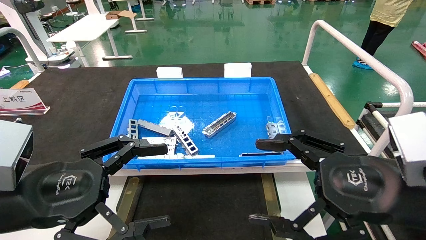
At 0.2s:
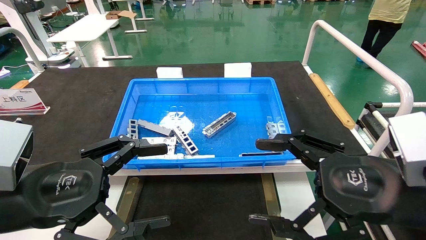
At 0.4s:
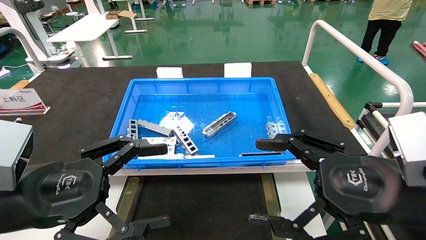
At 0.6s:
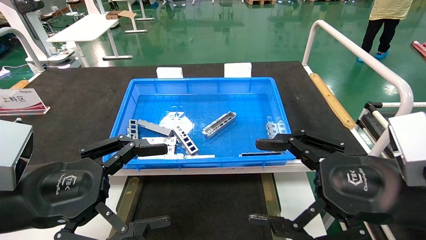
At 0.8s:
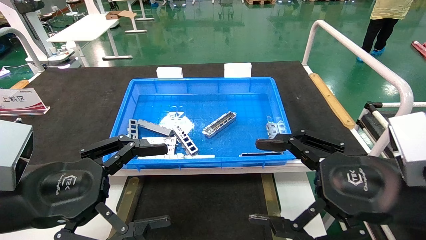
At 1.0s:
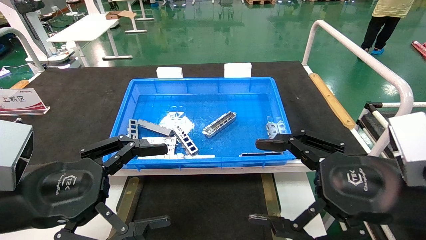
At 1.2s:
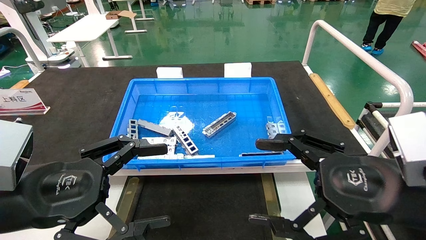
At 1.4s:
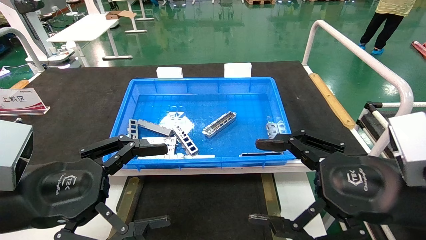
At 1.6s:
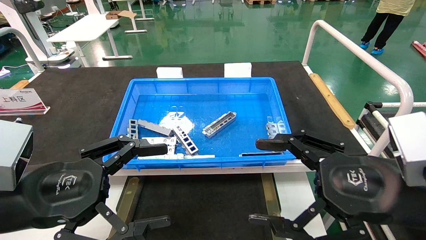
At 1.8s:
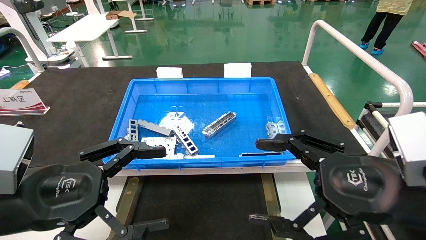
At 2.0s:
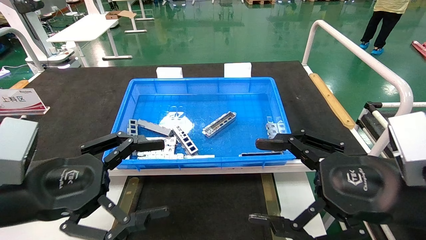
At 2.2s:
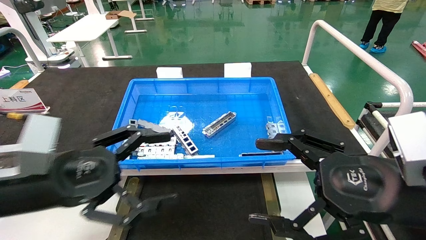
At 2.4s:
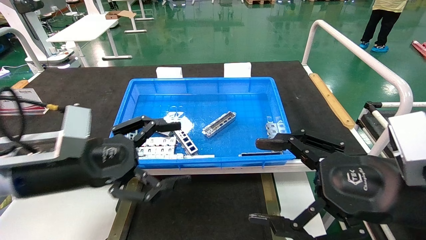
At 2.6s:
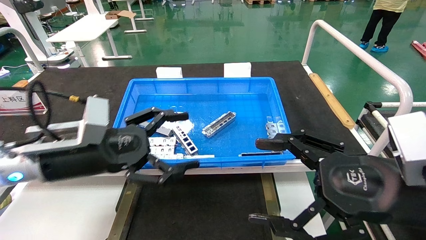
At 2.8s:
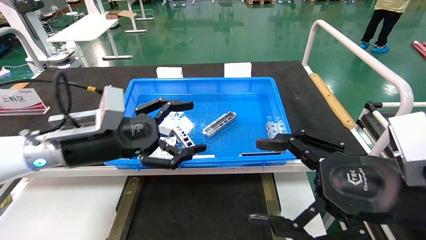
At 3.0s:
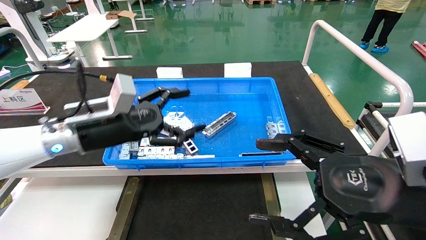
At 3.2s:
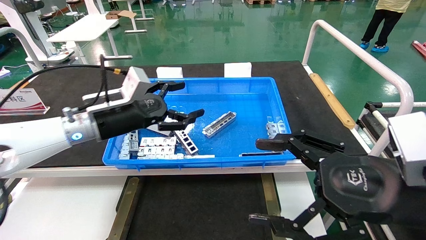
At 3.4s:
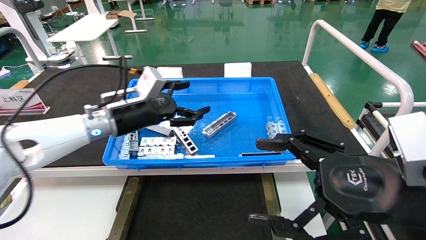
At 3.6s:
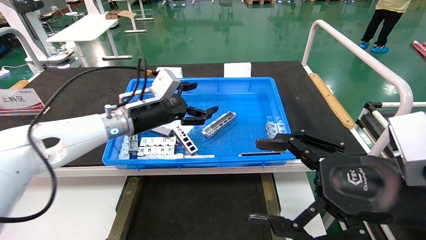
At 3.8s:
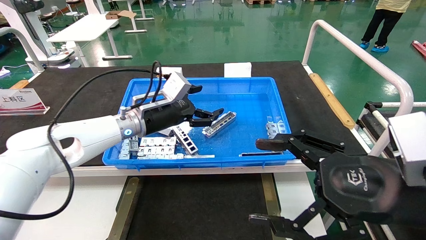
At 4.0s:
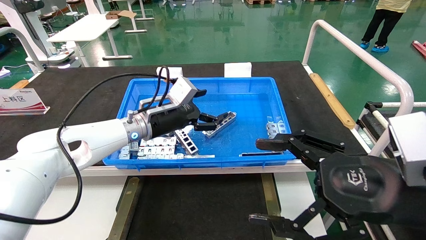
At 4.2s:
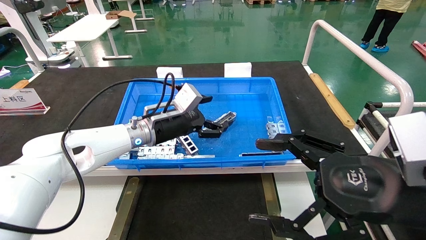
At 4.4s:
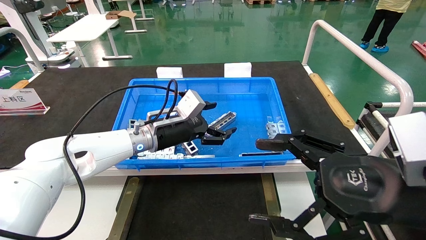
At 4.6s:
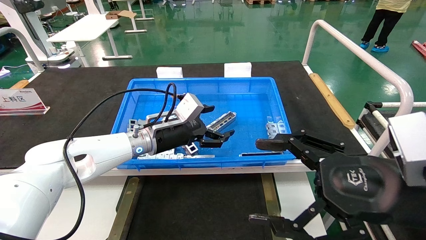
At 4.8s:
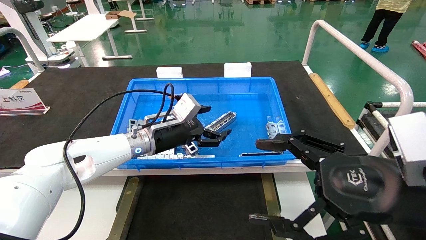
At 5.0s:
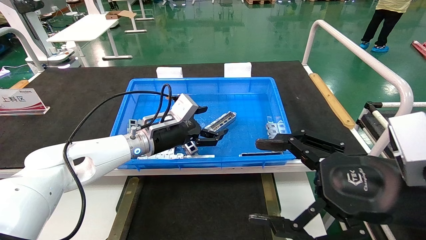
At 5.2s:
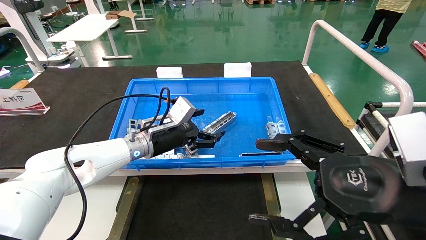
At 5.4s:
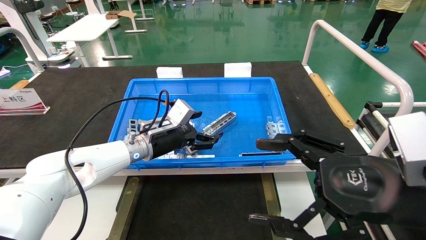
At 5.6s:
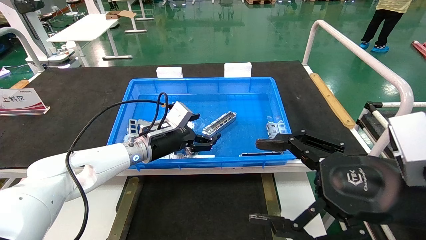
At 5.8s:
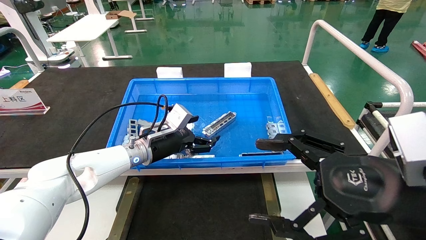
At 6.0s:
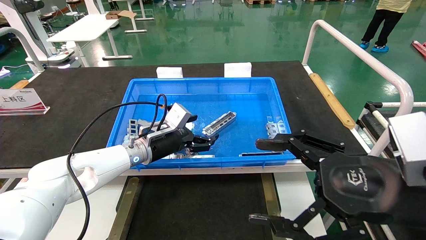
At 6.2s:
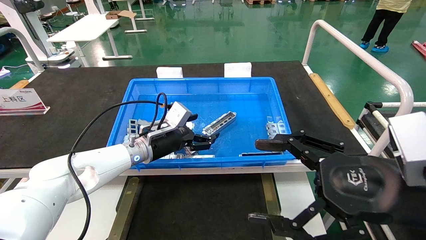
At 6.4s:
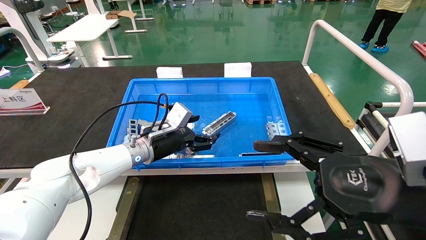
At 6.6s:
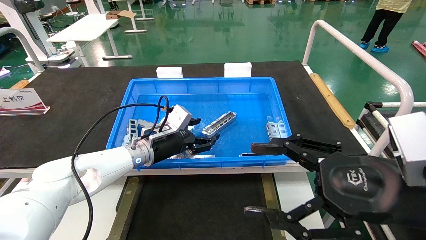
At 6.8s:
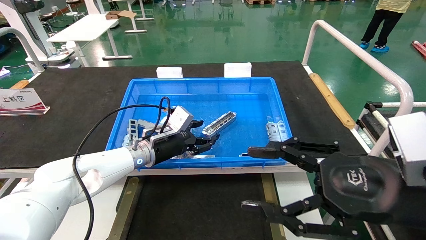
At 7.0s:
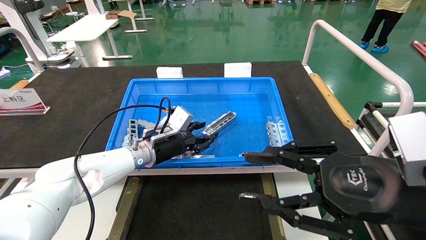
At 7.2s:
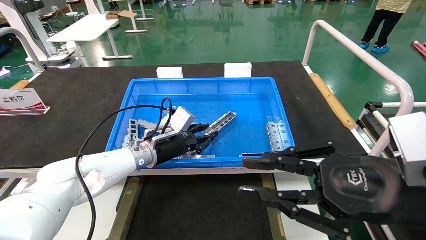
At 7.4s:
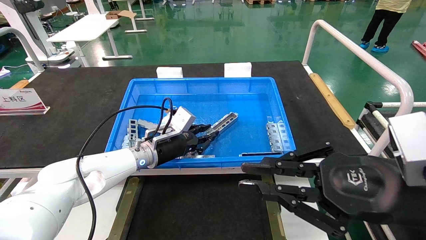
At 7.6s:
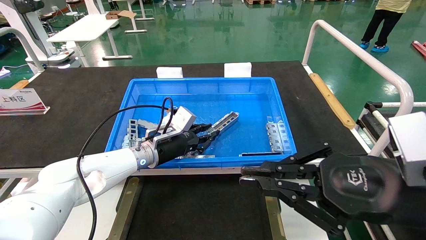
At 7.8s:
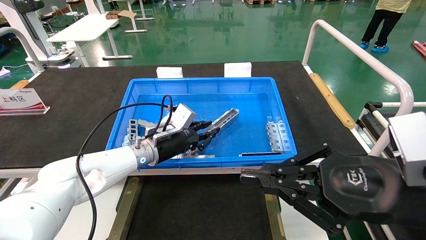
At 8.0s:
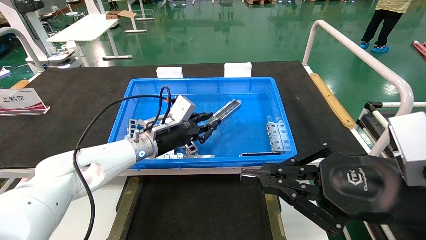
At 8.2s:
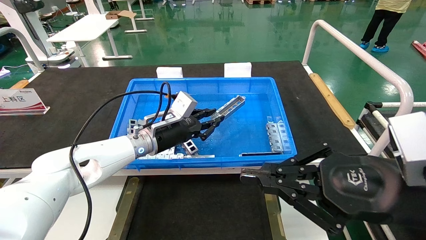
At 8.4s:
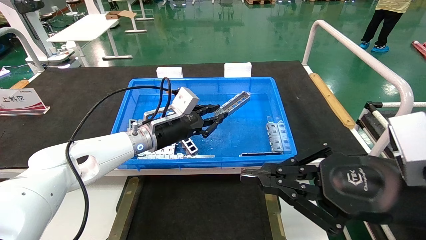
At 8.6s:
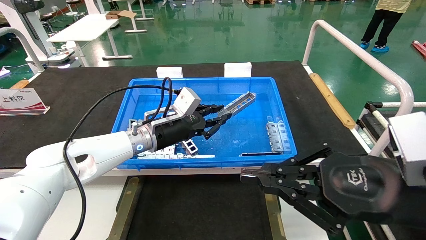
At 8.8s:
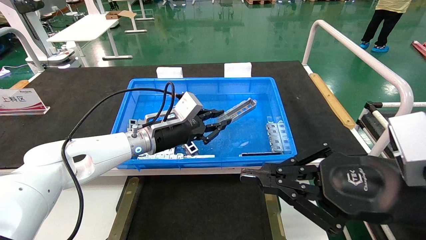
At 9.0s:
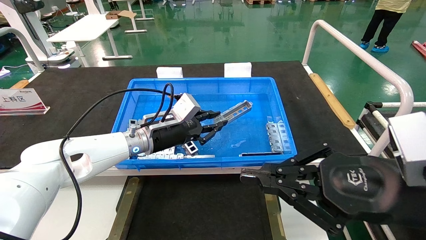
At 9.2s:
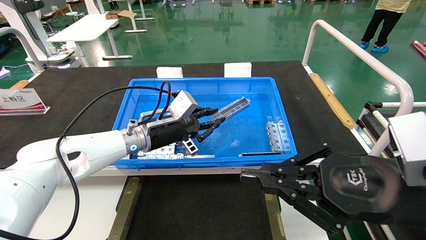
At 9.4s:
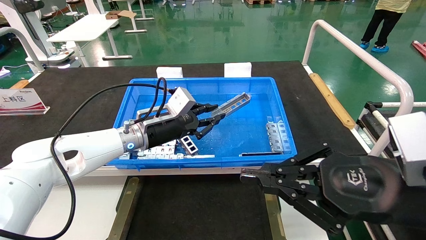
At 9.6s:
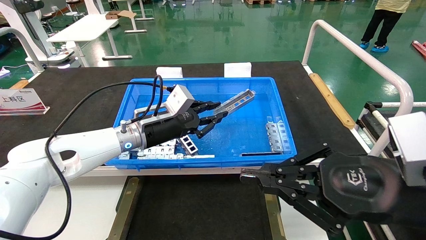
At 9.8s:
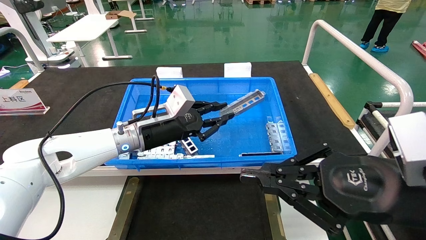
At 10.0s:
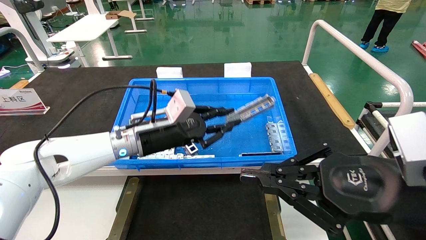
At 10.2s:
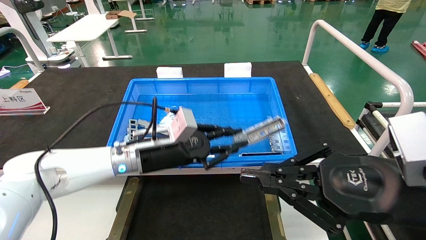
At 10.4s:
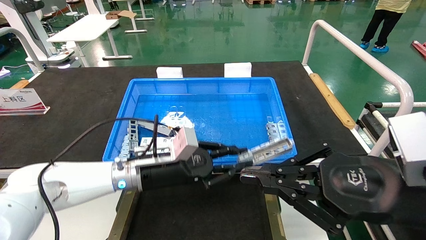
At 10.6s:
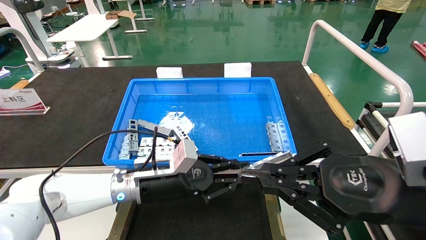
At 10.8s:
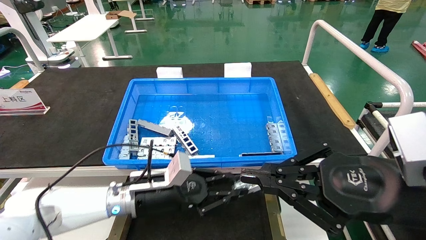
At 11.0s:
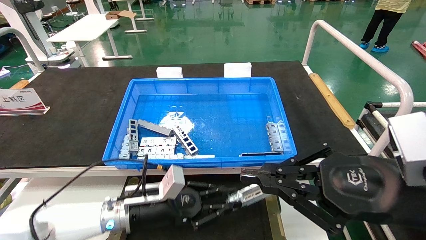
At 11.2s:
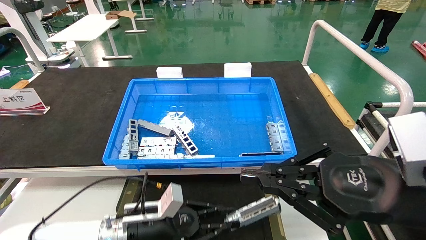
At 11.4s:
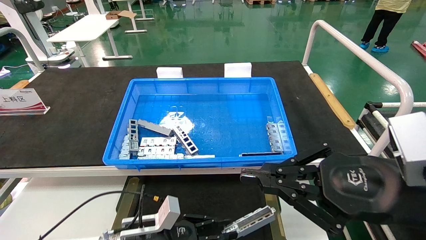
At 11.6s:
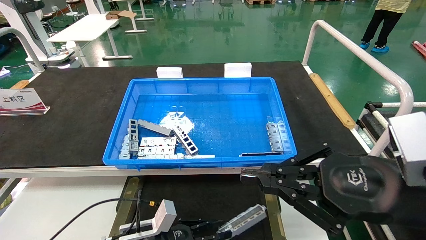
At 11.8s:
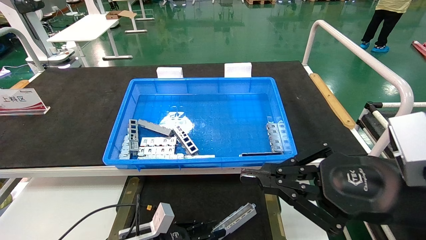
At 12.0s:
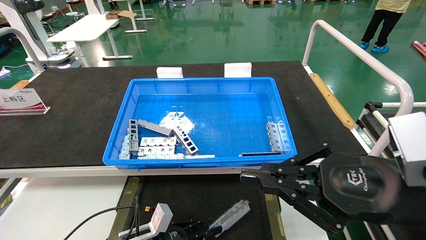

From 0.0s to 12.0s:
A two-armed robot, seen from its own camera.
Task of the whole recording: Grasp the part with one hand and place it on the black container.
Step, from 2.0s to 7.4s: Pick up the front USB bracket from the feeding area.
From 0.0s to 1.6s: The two grippers keep their place.
From 1.6s to 3.0s: The left gripper moves forward, approximately 20 cm.
From 3.0s to 4.4s: The left gripper travels to the right and forward by roughly 15 cm.
From 4.4s to 6.0s: The left gripper shifts by about 5 cm.
From 6.0s to 7.6s: The left gripper closes up. Meanwhile the right gripper closes its fingers.
From 7.6s to 9.0s: The grippers make only small movements.
From 9.0s to 10.4s: The left gripper heads backward, covering approximately 5 cm.
From 10.4s to 12.0s: The left gripper shifts about 20 cm downward.

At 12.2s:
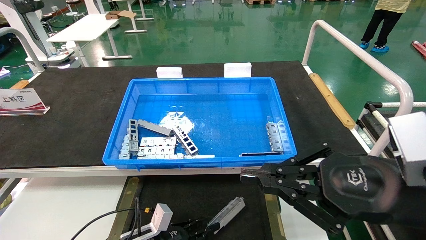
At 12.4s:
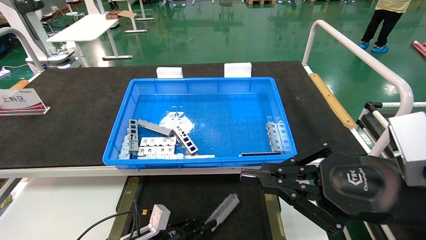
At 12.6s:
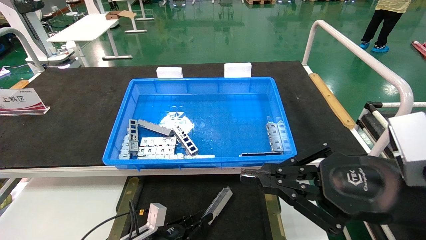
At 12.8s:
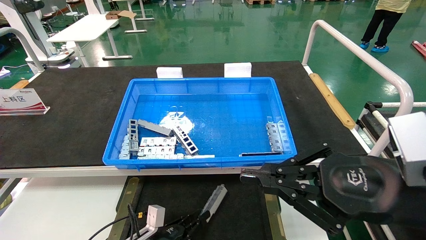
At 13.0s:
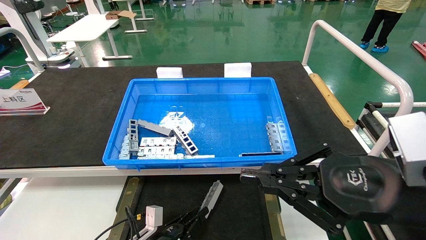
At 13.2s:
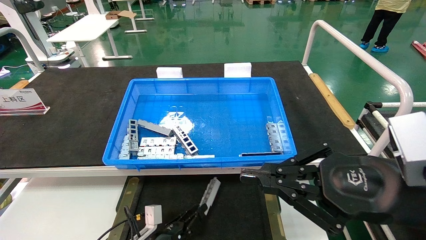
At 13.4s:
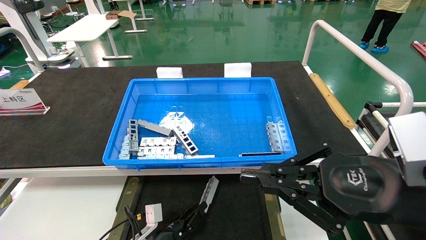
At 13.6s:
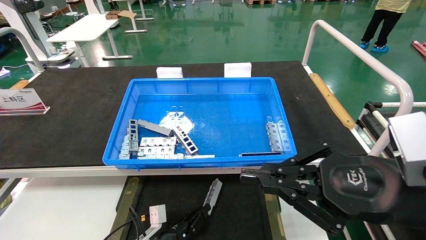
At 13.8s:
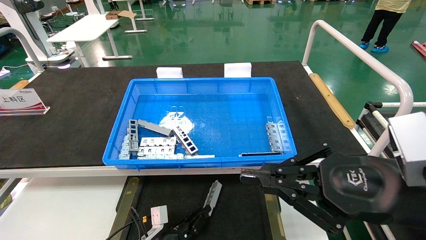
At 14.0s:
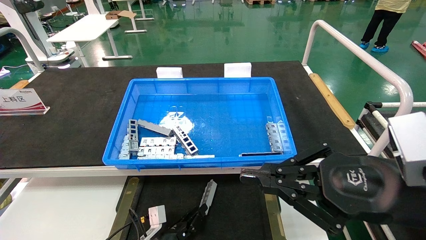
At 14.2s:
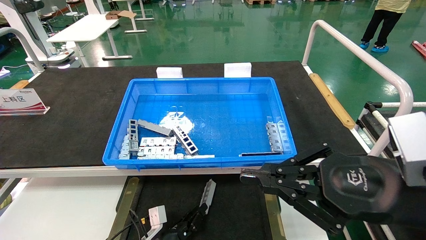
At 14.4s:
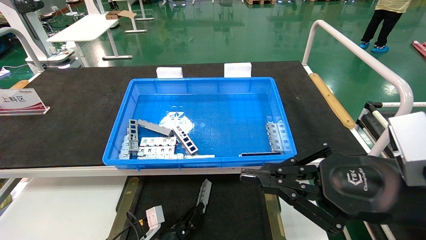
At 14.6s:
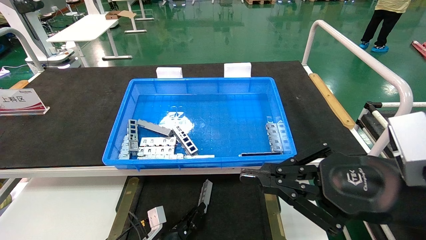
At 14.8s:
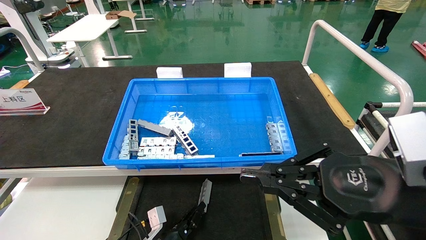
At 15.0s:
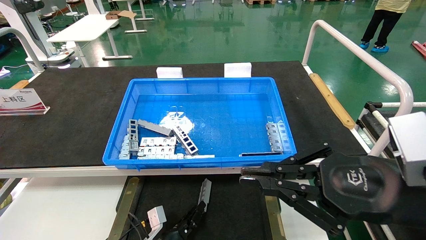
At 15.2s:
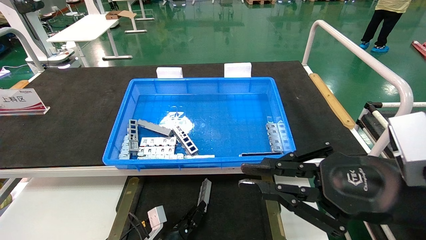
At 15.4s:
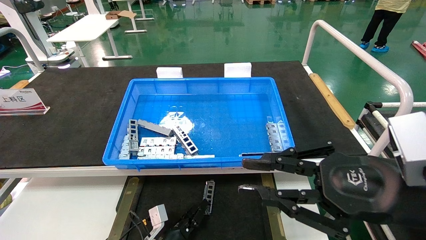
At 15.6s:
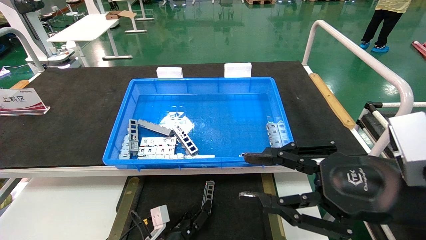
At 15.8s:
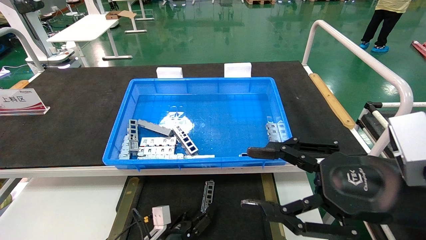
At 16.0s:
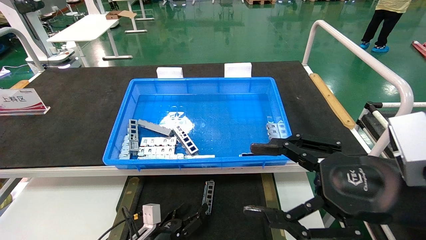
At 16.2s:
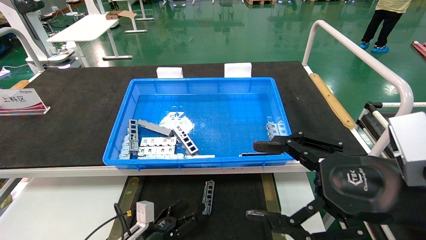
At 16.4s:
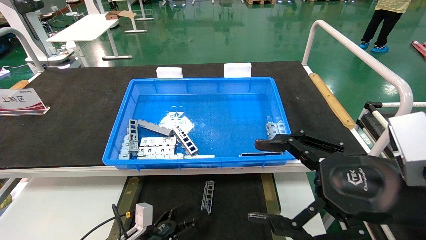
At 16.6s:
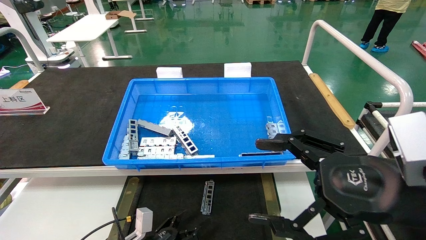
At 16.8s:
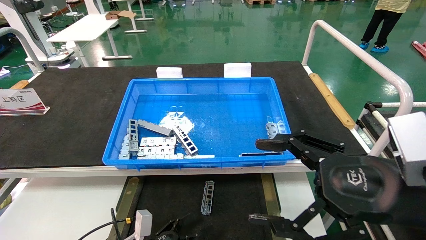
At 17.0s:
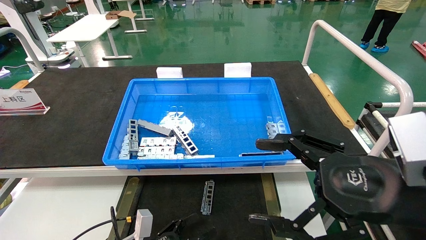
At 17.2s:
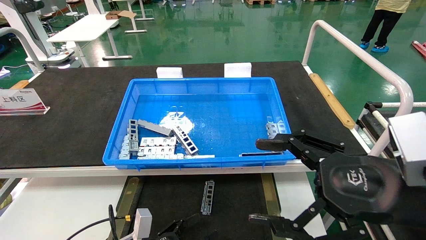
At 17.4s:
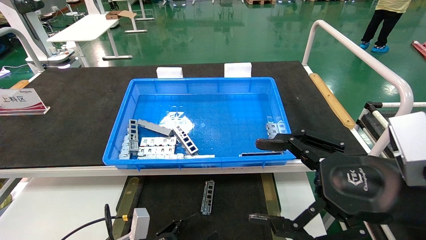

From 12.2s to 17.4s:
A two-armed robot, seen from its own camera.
Task of the whole recording: Grasp the part with one hand and place it on the black container.
Step, from 12.2s to 15.6s: Place the front USB bracket into the box.
From 12.2s to 14.0s: The left gripper goes roughly 5 cm downward.
From 14.0s to 15.6s: The grippers make only small movements.
From 15.6s to 17.4s: The left gripper heads backward, upward and to the left, covering approximately 15 cm, and opens its fingers. Meanwhile the right gripper opens.
